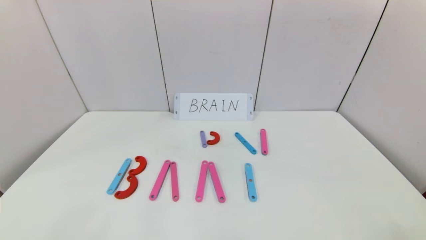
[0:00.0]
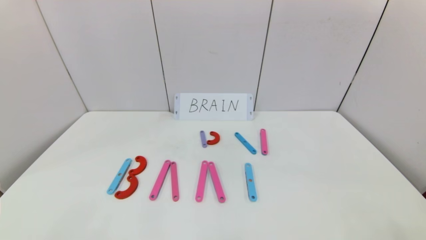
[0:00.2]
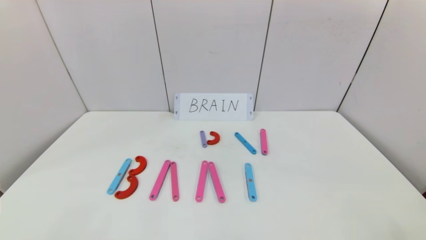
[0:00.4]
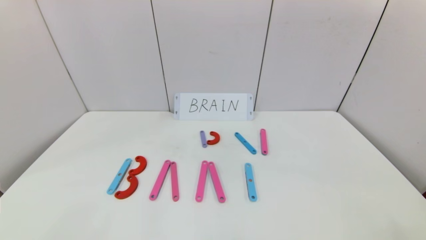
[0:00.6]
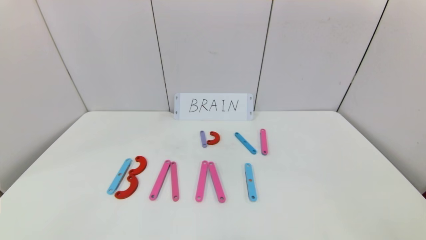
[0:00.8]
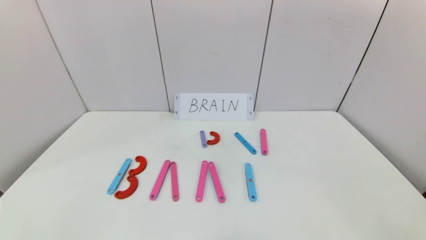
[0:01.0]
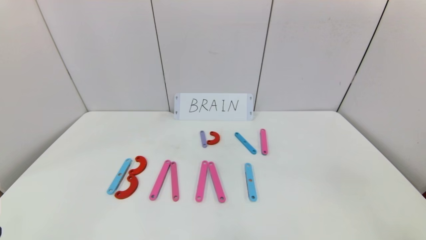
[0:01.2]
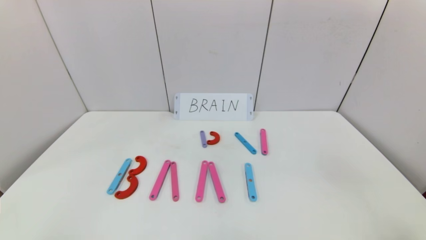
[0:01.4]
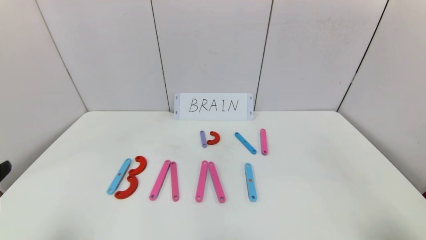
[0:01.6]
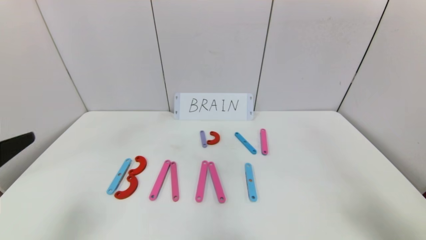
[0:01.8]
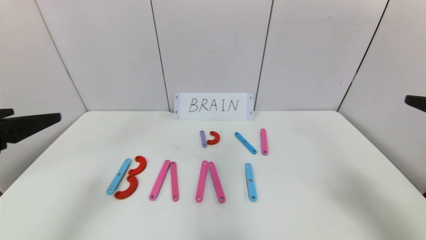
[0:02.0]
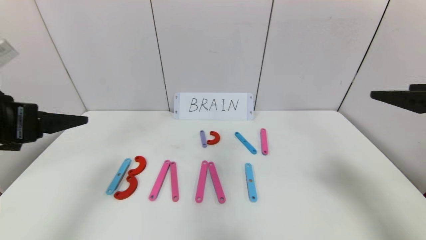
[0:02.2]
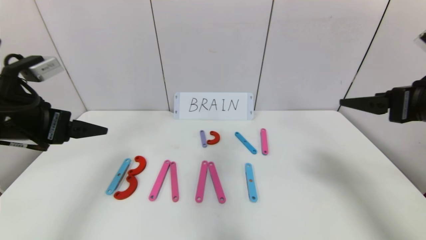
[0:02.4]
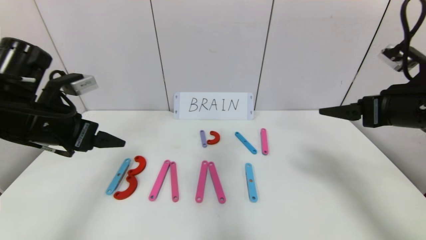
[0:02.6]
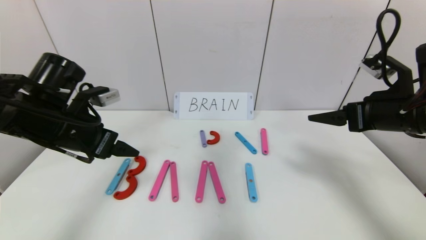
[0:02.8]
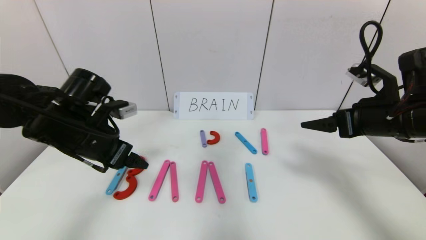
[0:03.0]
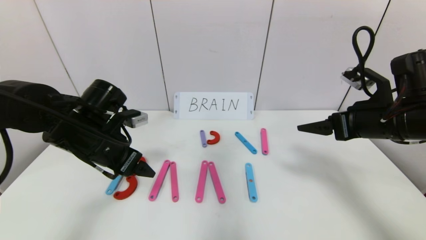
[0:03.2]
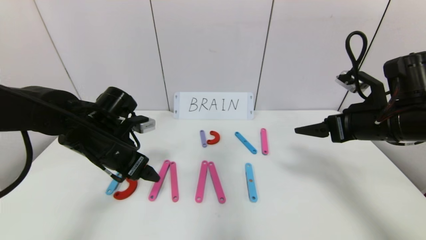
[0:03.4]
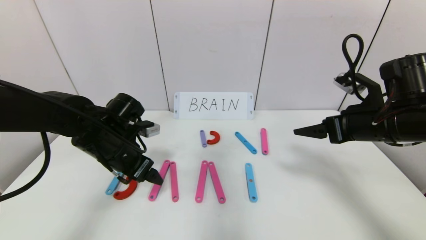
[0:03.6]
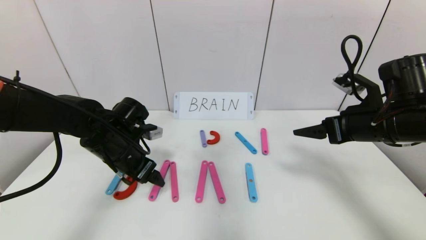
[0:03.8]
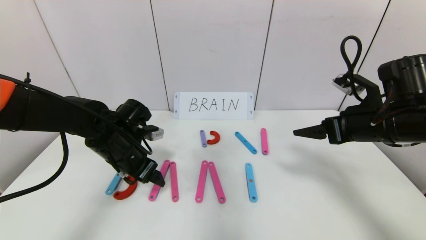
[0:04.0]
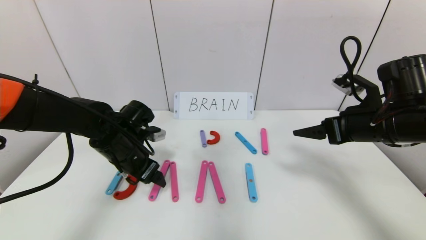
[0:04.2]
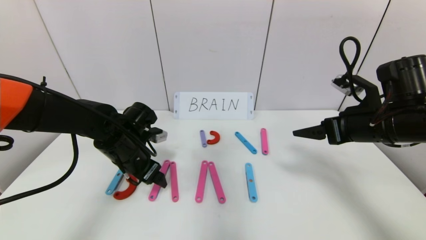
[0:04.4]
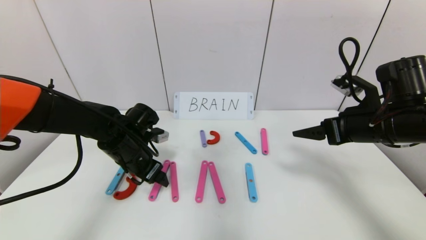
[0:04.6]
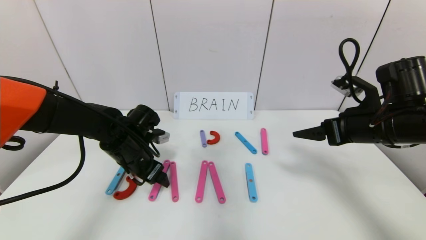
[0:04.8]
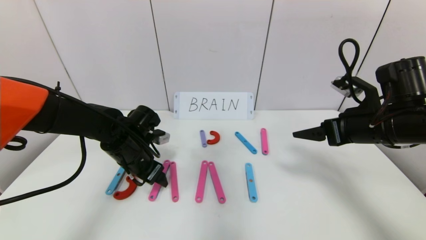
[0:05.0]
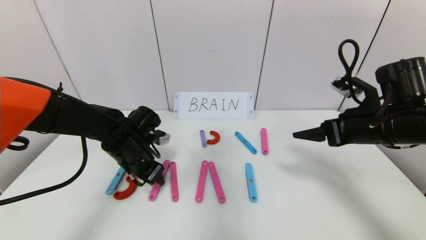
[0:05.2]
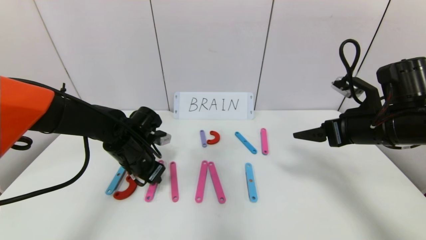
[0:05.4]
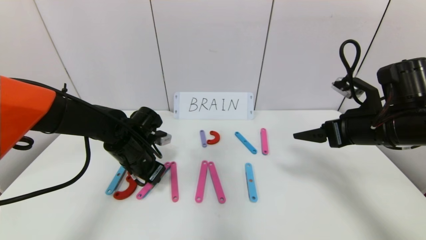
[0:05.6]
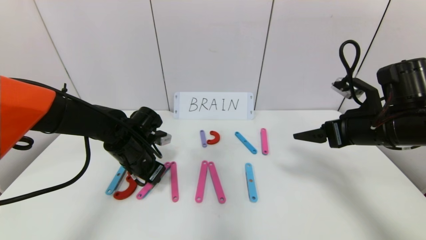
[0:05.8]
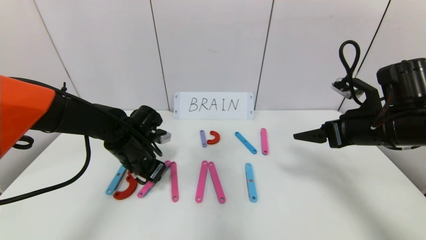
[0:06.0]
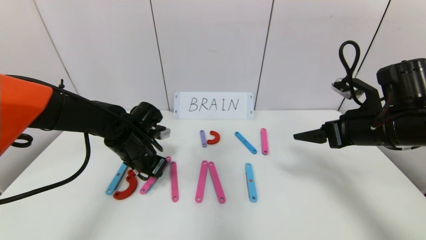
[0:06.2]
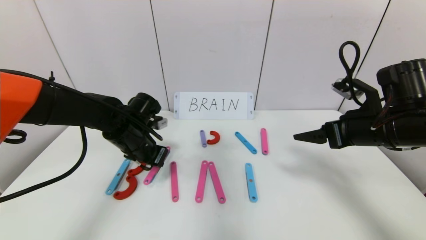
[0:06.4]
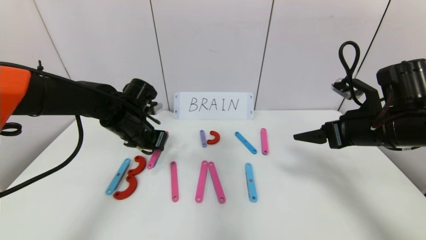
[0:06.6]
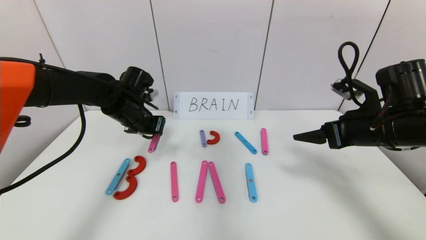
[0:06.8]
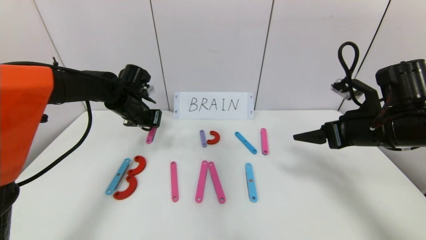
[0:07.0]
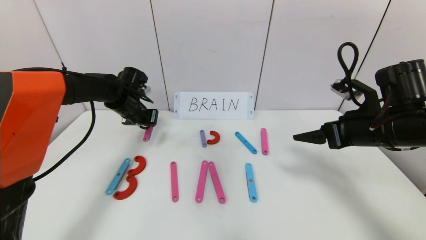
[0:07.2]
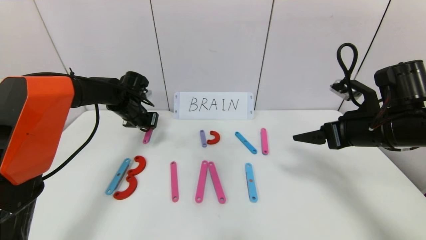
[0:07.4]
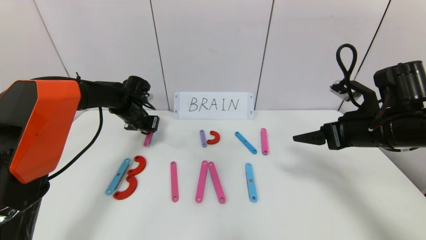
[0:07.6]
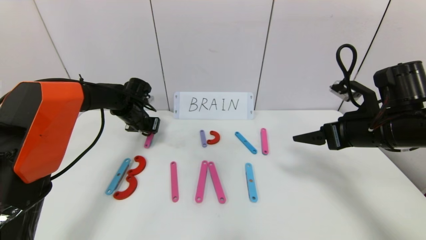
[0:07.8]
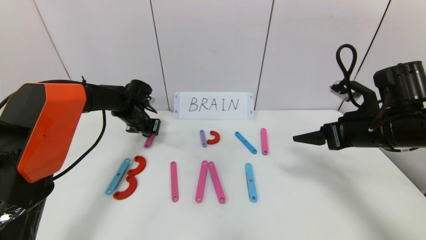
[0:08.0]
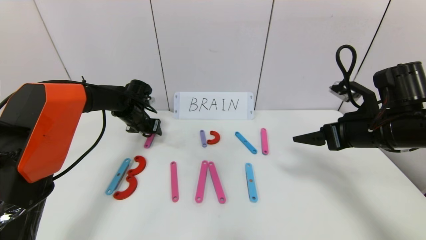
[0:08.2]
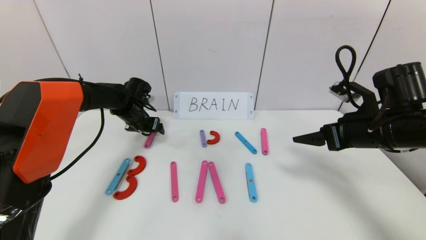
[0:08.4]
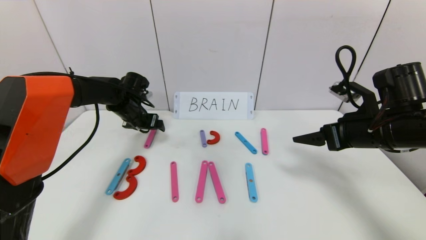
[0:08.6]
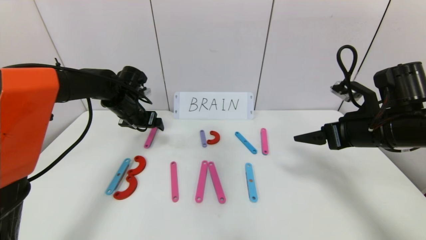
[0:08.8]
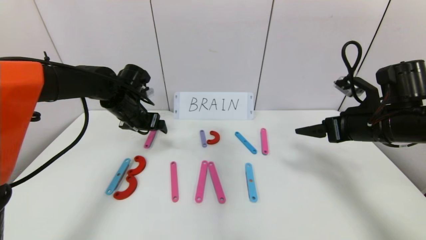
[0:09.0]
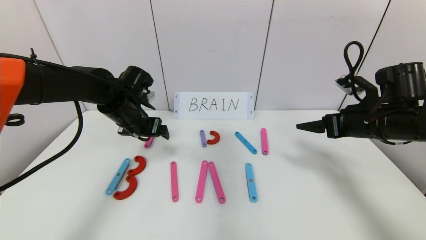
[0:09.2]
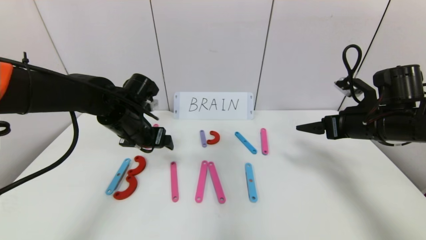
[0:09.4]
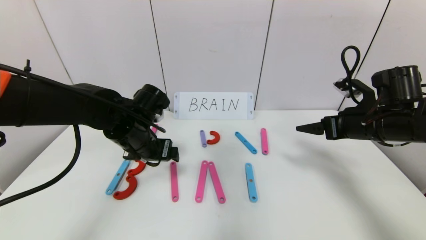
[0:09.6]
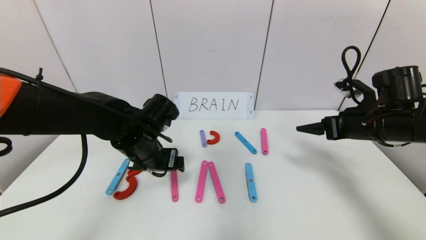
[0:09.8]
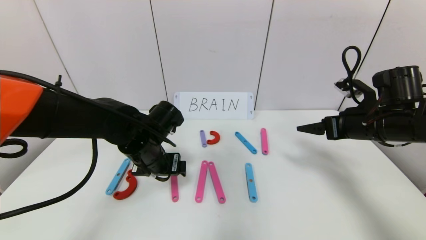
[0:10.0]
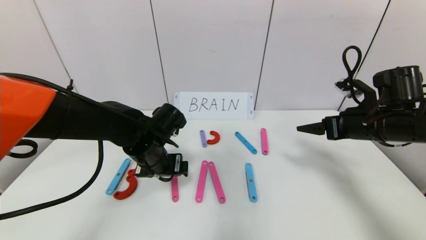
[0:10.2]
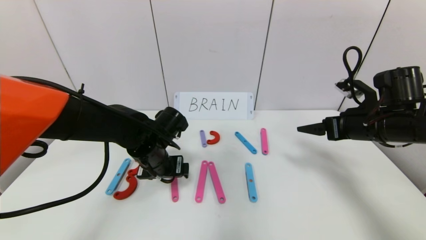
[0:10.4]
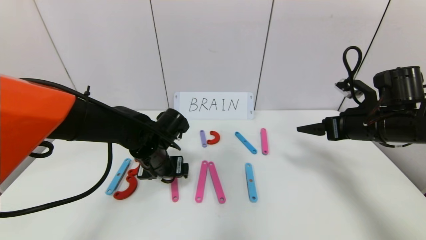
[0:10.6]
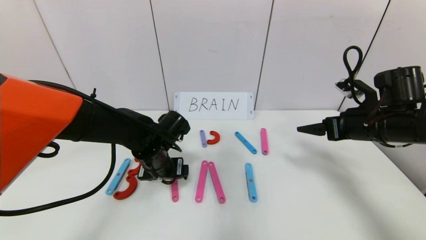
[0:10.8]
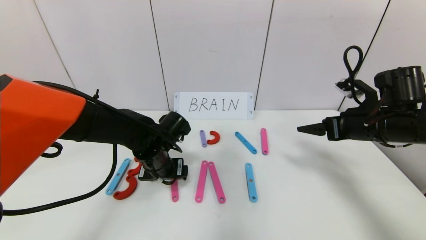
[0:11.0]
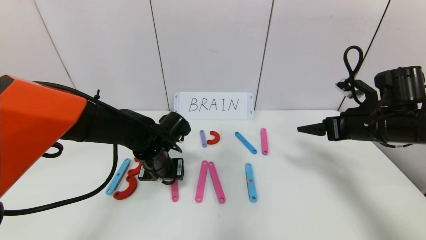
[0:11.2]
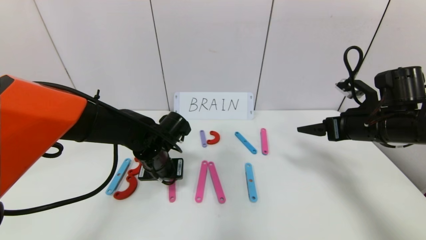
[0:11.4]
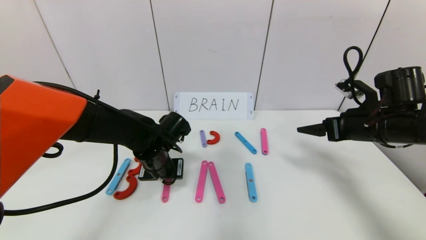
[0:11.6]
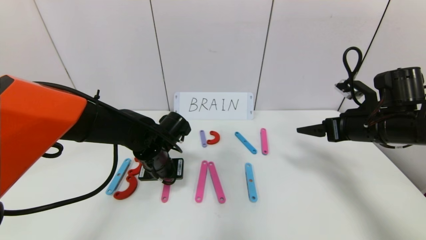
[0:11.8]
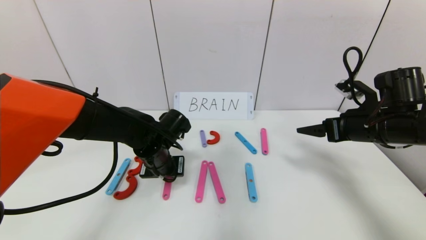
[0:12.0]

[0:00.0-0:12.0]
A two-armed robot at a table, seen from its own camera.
Task of the whole recording: rearrange the word baai as brain.
1.6 to 3.0 s: The grippers both shift forward by approximately 25 cm.
3.0 to 4.4 s: The left gripper moves downward, roughly 10 cm.
4.4 to 6.0 s: The left gripper closes up.
6.0 to 7.6 s: The left gripper heads forward, covering roughly 15 cm.
7.6 to 9.0 s: The left gripper goes approximately 5 cm backward, and opens its fingers.
9.0 to 10.4 s: The left gripper heads backward, to the right and downward, covering roughly 15 cm.
10.4 to 12.0 s: The left gripper closes.

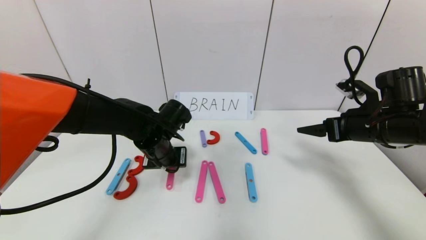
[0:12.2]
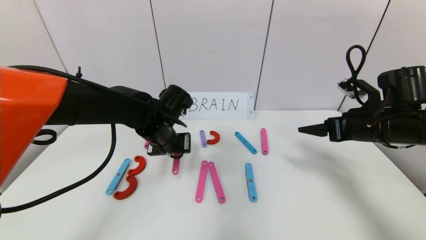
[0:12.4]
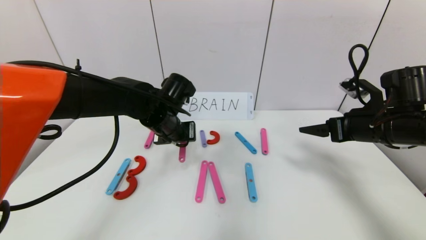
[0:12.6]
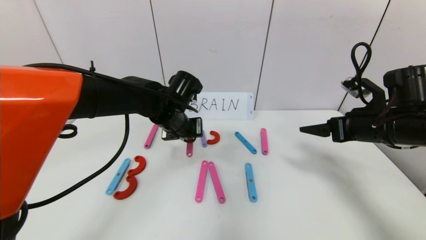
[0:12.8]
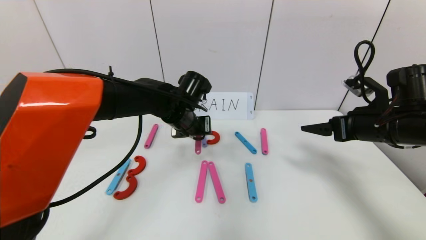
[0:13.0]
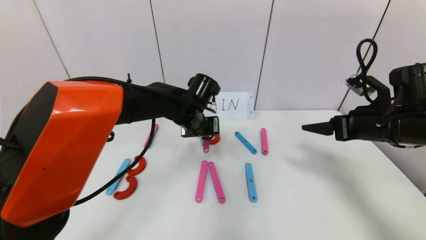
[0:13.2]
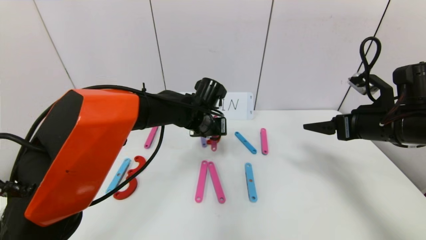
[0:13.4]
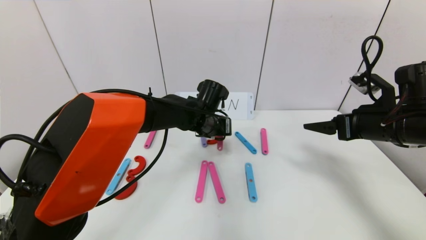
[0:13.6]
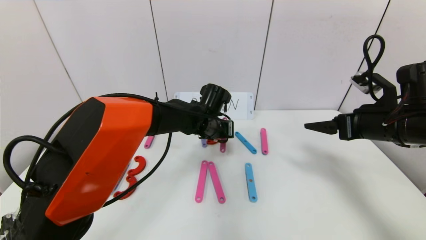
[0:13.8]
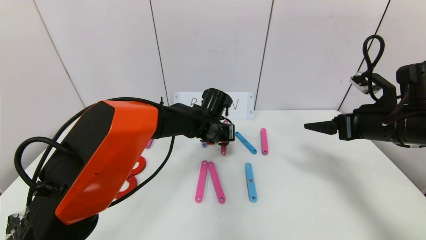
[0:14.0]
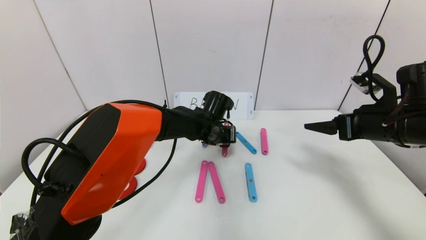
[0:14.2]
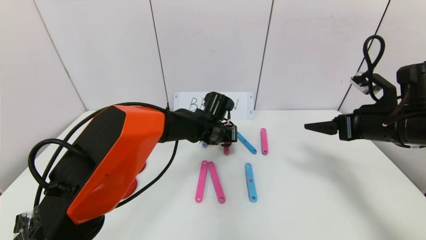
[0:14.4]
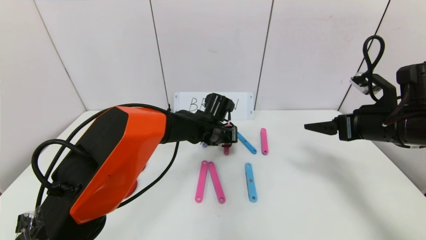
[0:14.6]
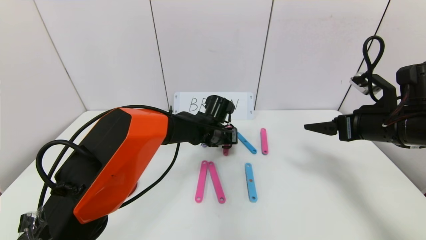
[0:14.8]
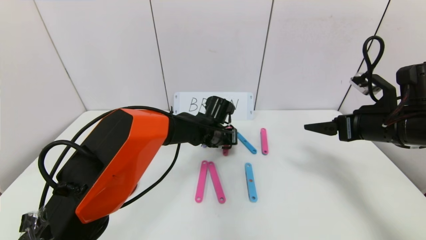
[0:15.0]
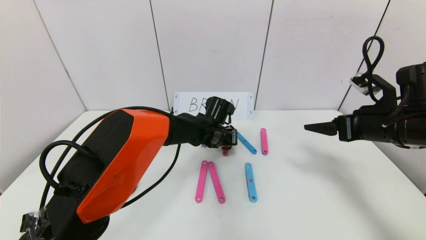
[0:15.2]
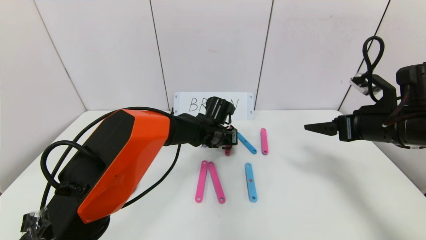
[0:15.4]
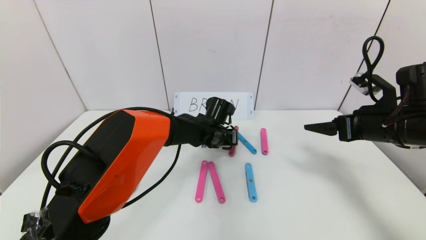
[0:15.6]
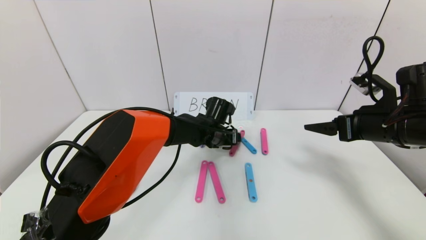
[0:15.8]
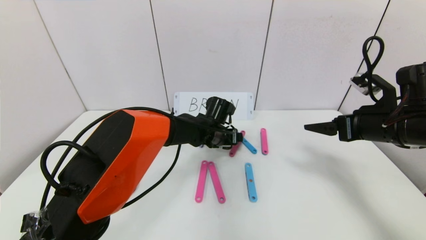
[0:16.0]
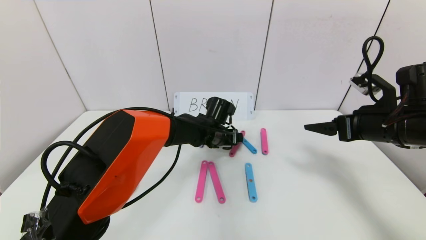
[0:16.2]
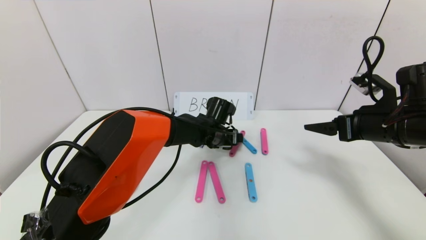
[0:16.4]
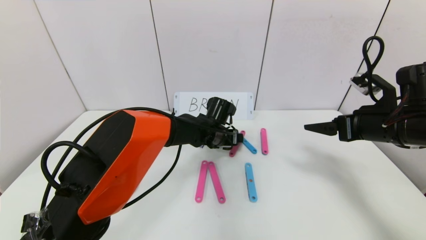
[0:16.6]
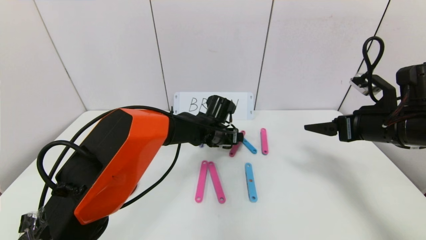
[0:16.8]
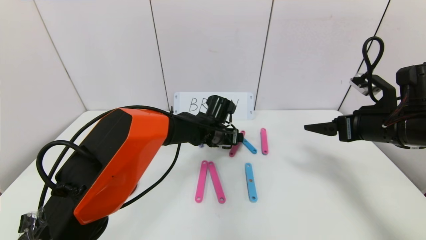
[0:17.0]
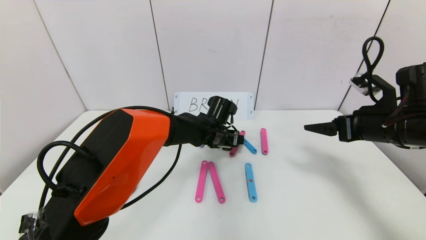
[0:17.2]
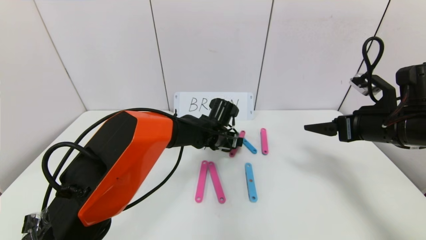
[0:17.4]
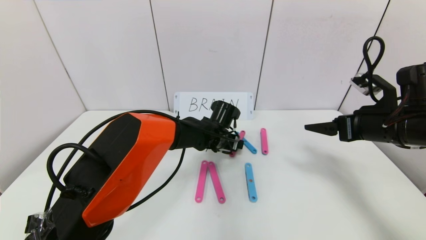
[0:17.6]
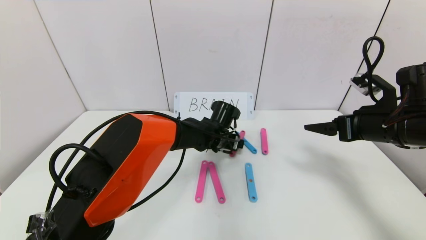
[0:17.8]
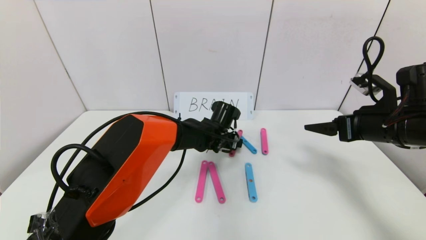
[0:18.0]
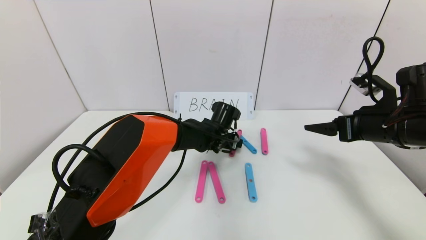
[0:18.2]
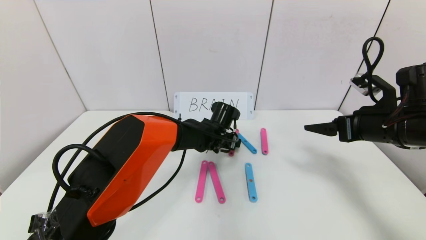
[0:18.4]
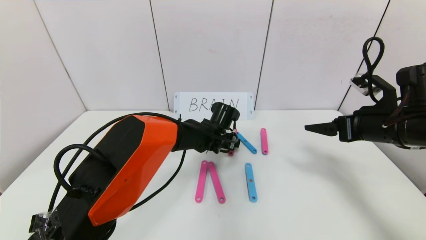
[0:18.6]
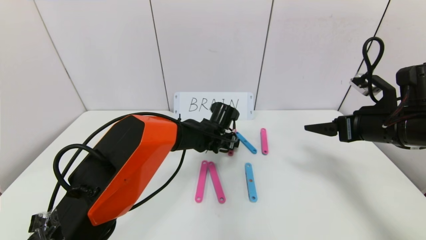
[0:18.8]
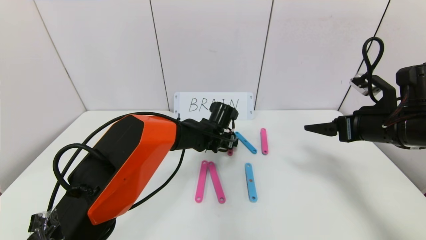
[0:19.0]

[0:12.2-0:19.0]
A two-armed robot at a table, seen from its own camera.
Task of the whole recording: rearrange the word baai as brain.
Step, 12.2 to 16.6 s: Disassemble the second character A.
12.2 to 13.6 s: The left gripper is displaced to the right and forward by some 10 cm.
13.6 to 15.0 s: The left gripper changes place by some 5 cm.
15.0 to 16.2 s: The left gripper opens its fingers.
16.2 to 19.0 s: The grippers move only a little.
